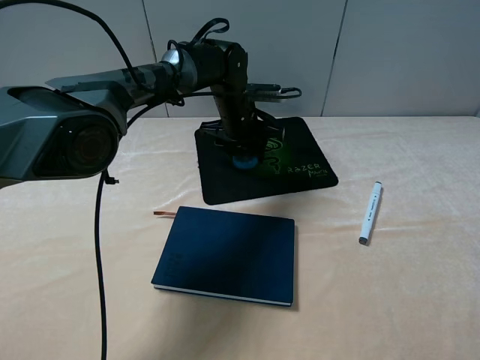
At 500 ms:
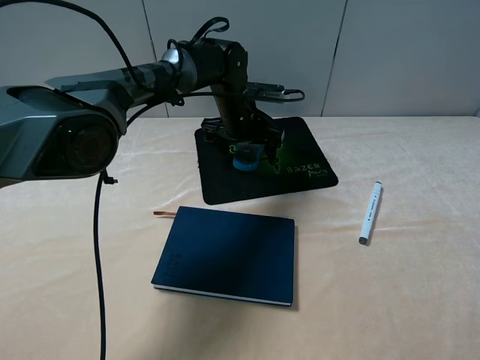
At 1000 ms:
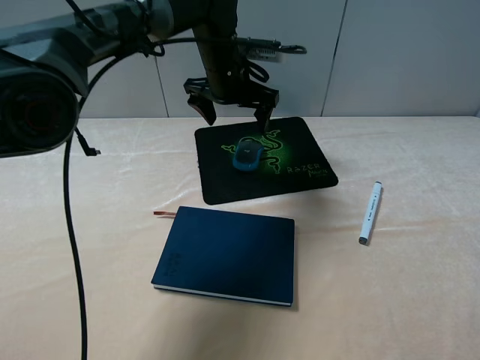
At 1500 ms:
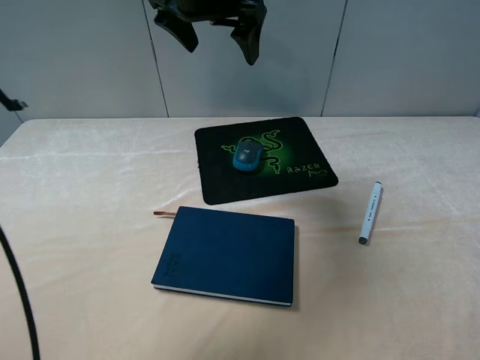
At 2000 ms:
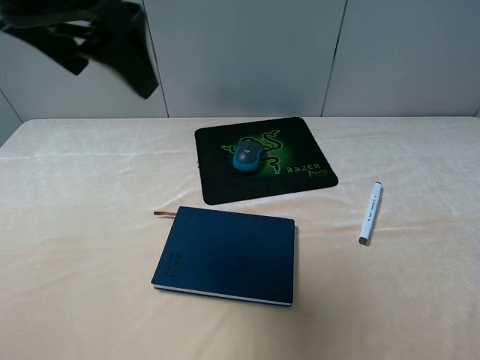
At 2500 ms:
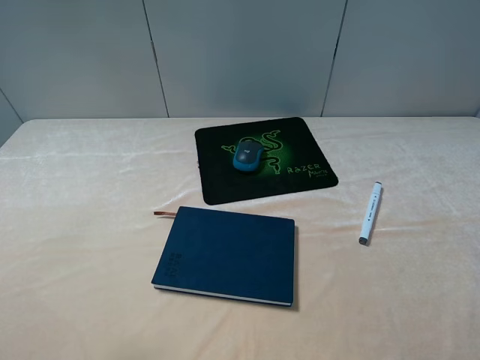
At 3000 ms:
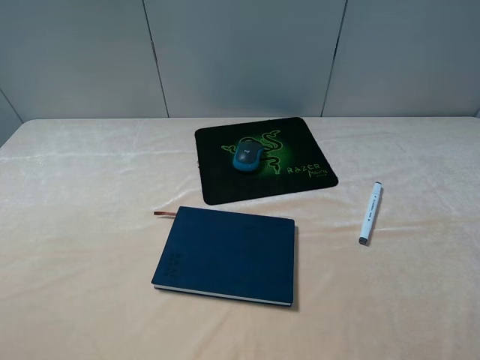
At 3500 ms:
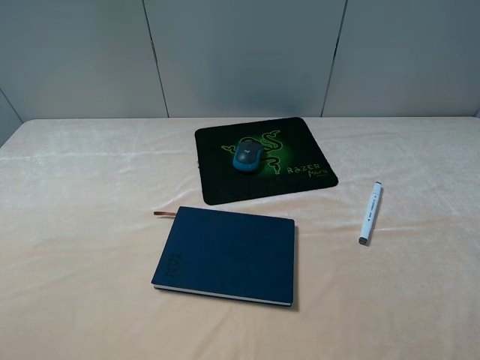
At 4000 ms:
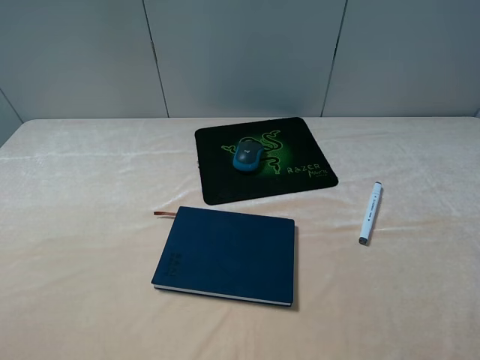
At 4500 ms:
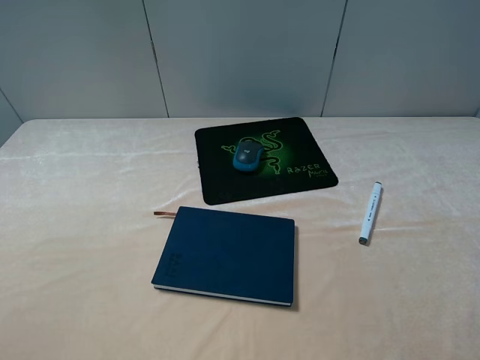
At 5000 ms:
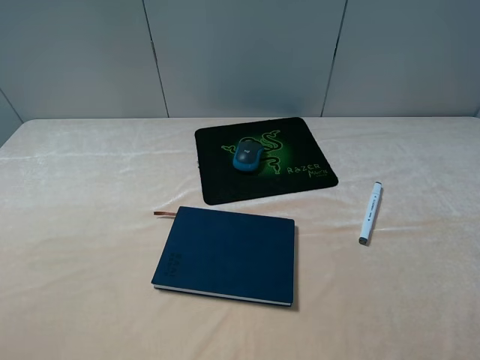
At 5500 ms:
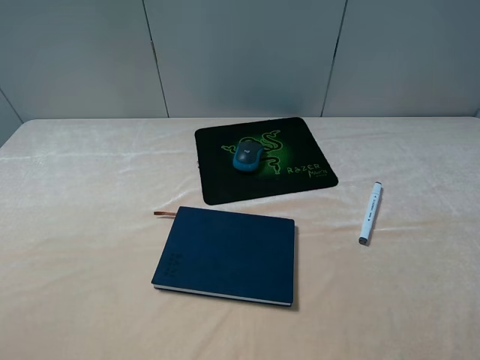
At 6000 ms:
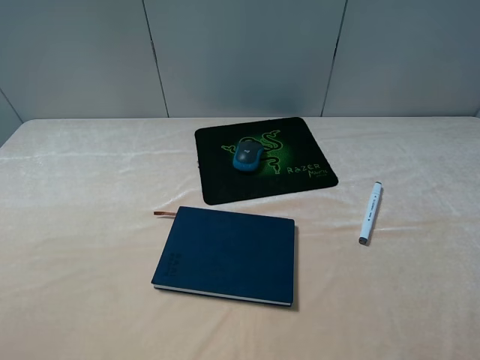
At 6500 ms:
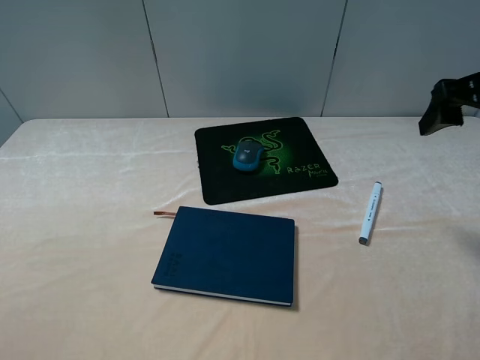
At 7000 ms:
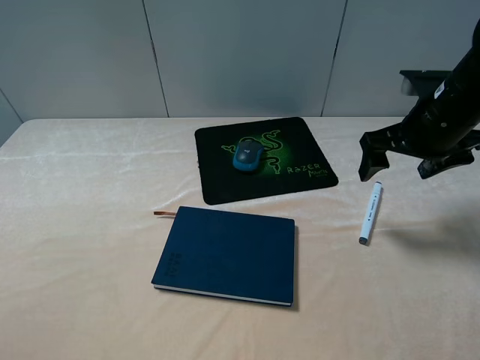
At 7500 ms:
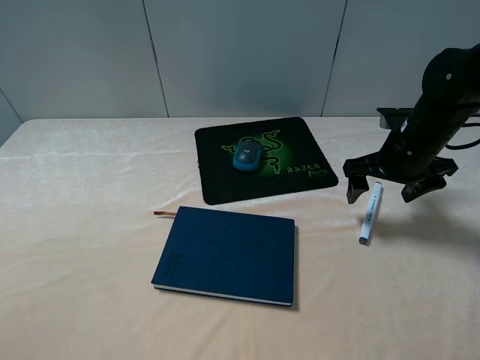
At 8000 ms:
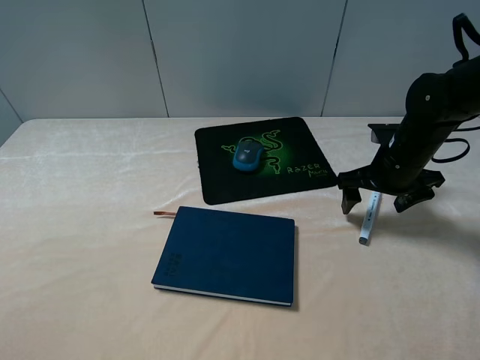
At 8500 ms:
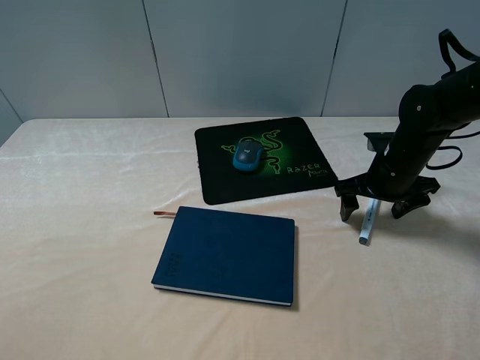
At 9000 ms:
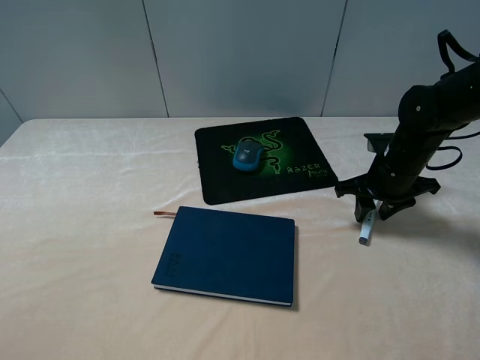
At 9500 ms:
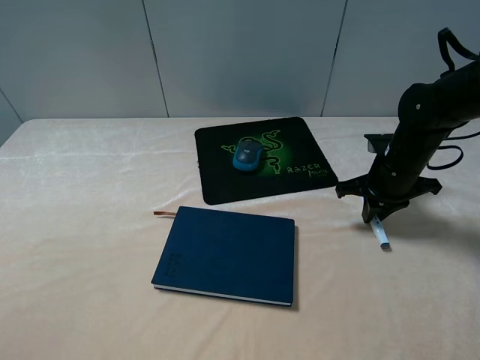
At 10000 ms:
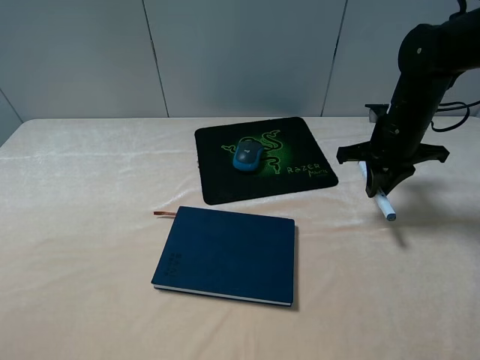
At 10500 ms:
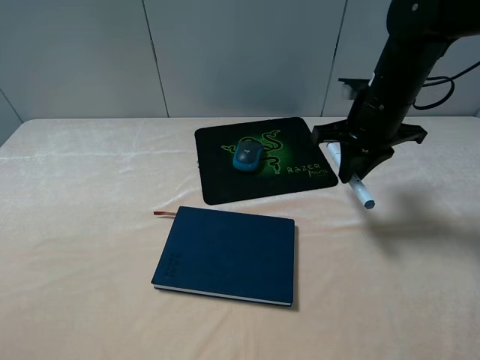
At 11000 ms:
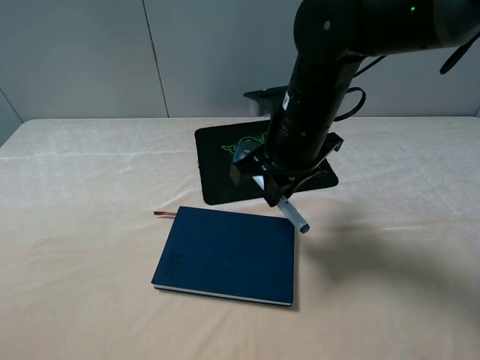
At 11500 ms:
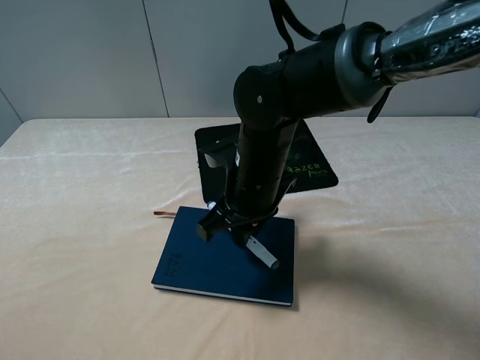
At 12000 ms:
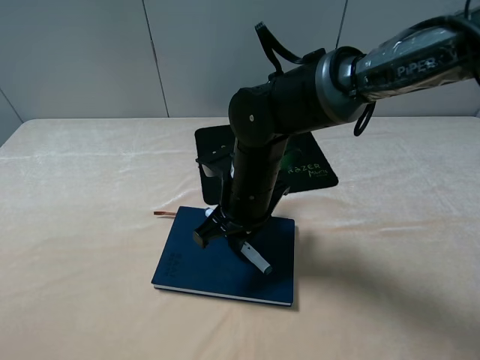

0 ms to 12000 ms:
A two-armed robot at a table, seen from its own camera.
Step, 1000 ms to 9000 ms: Grasp the marker with the right gripper.
0 ms to 2000 ms: The left gripper heads upward, backward and to the left, covering approximately 40 cm, and opens up.
2000 ms to 4000 ms: The left gripper heads backward, to the left and downward, covering roughly 30 cm.
6000 ms to 8000 ms: The right gripper travels downward and forward by about 25 cm.
8000 ms to 10000 ms: The right gripper moves roughly 5 cm, and closes its fingers.
10000 ms to 12000 ms: The right gripper travels to the left and backward by approximately 25 cm.

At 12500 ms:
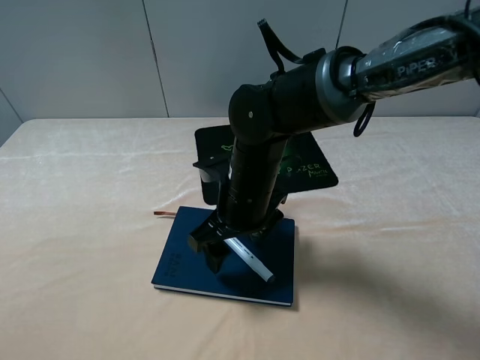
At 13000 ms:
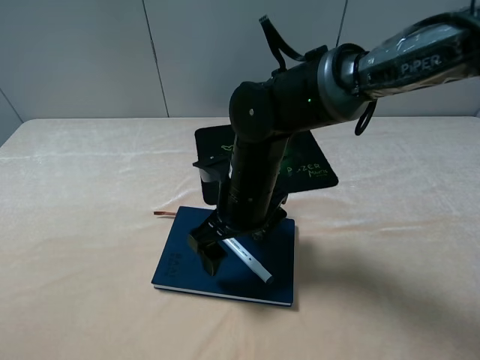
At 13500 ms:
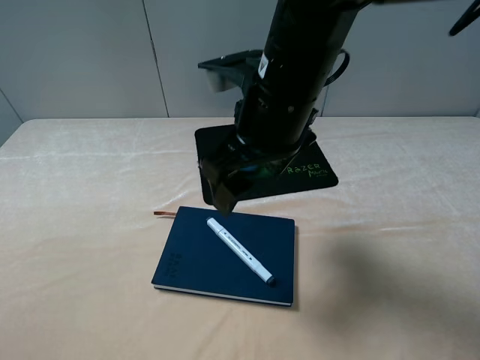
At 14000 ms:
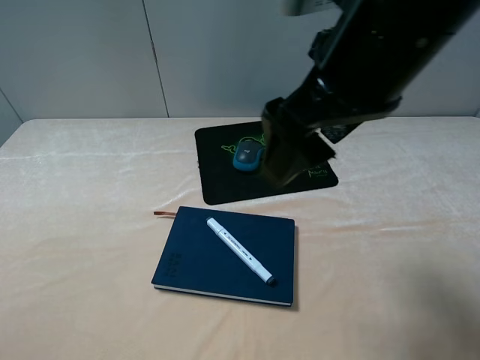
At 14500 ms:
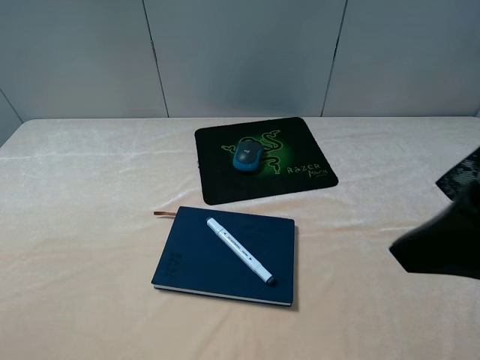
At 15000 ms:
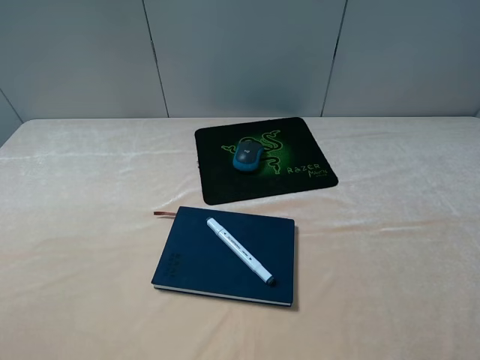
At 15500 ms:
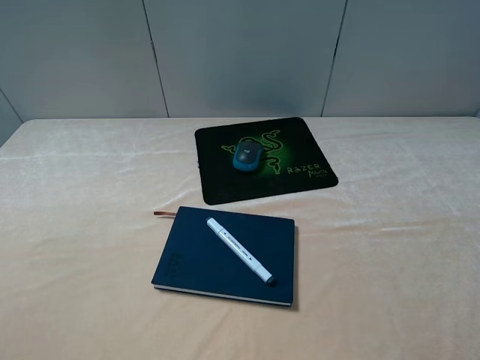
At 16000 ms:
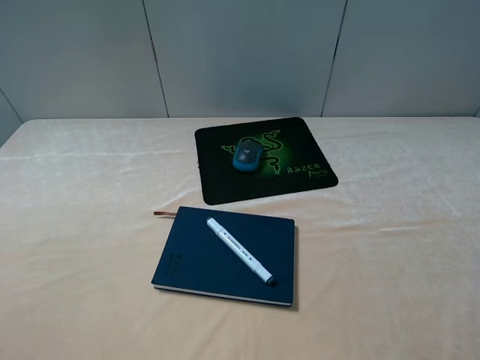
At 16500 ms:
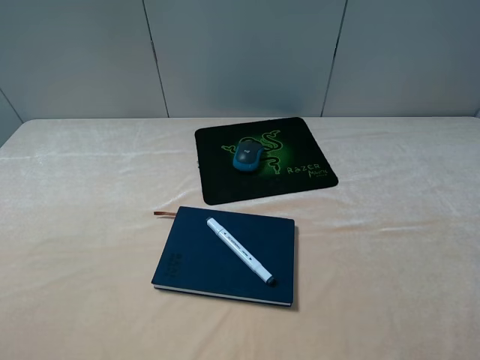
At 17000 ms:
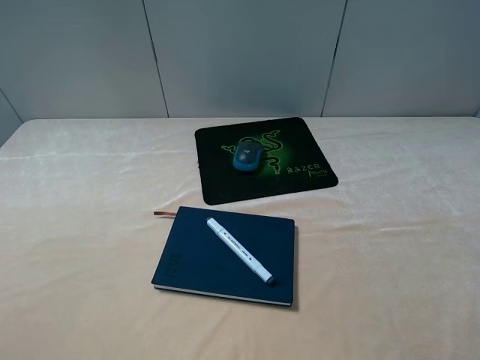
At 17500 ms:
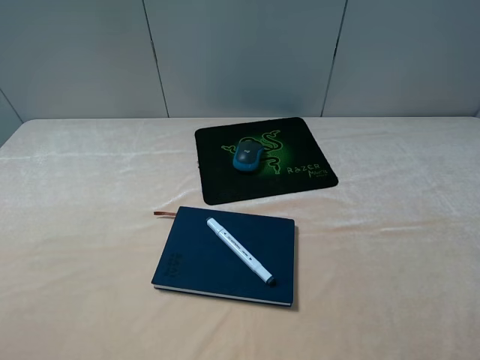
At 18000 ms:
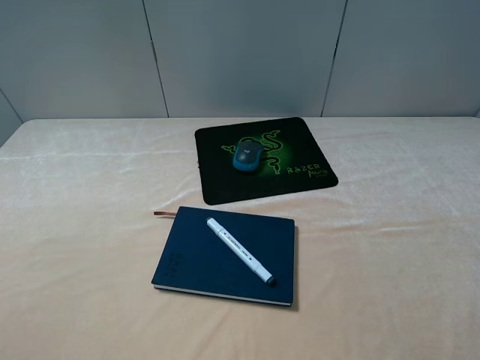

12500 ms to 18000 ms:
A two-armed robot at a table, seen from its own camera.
12500 ms to 14500 ms: The right gripper is displaced upward, to the right and backward by about 30 cm.
14500 ms to 16000 ms: The right gripper is displaced to the right, backward and downward by about 15 cm.
